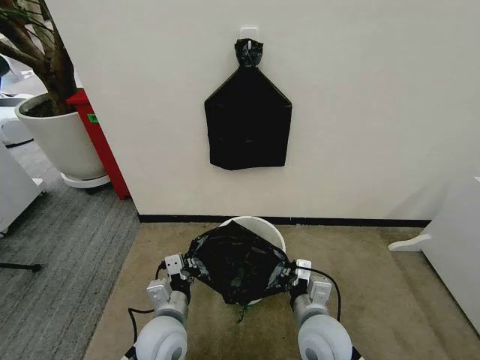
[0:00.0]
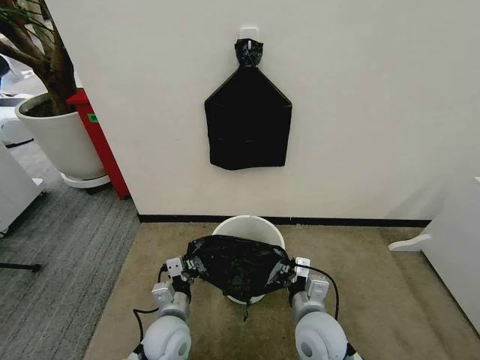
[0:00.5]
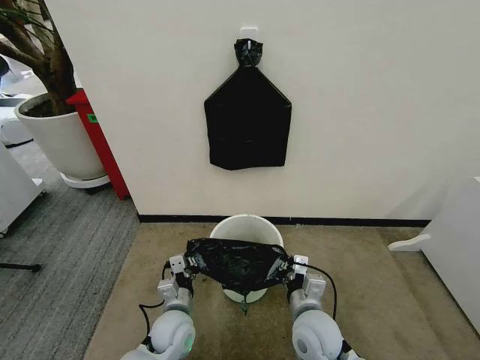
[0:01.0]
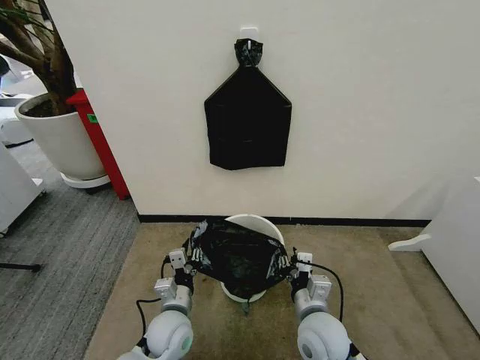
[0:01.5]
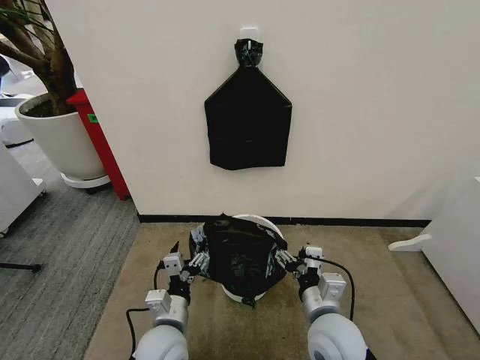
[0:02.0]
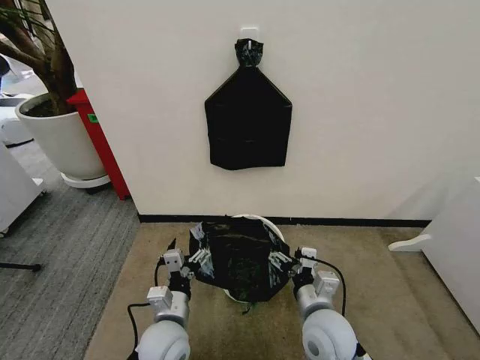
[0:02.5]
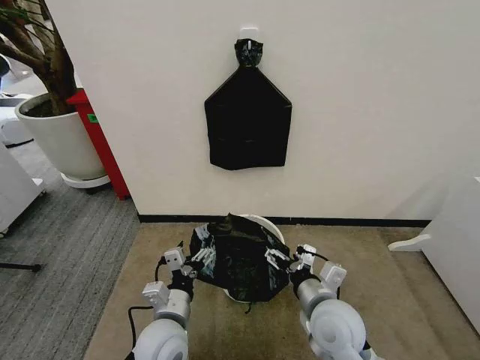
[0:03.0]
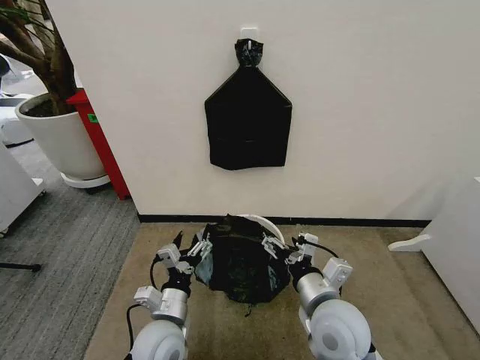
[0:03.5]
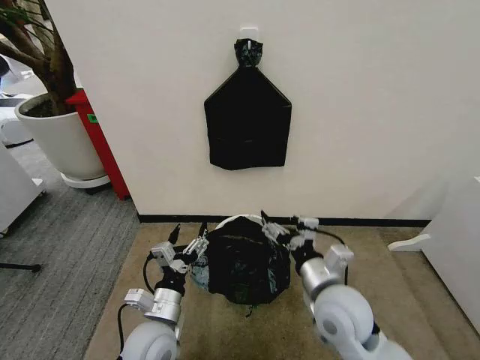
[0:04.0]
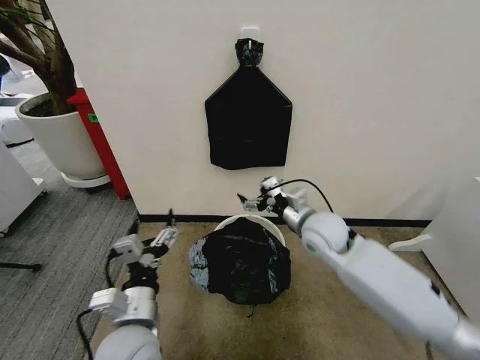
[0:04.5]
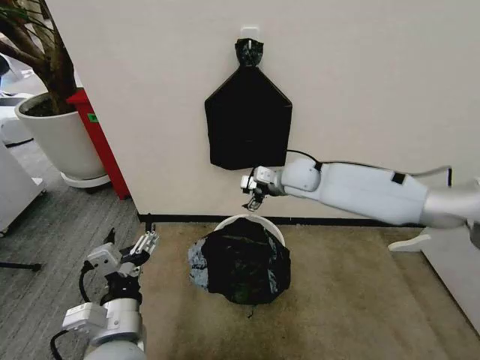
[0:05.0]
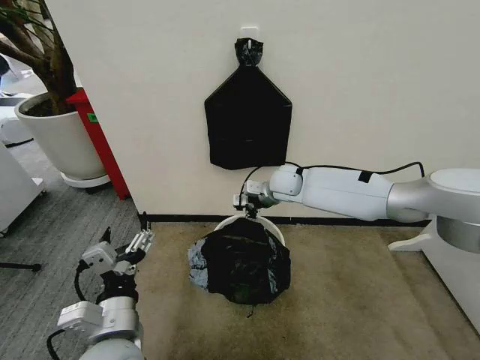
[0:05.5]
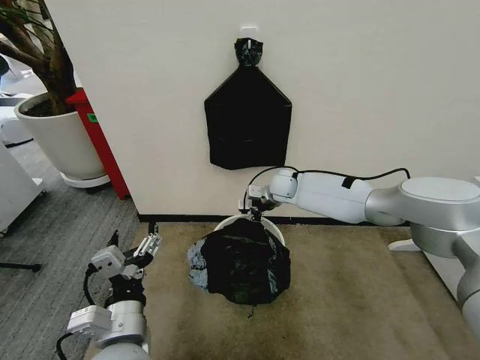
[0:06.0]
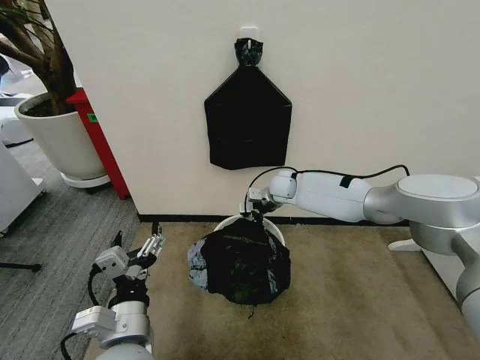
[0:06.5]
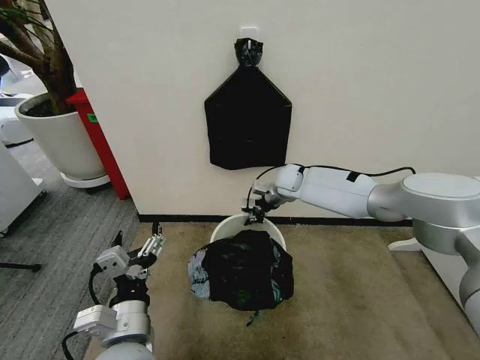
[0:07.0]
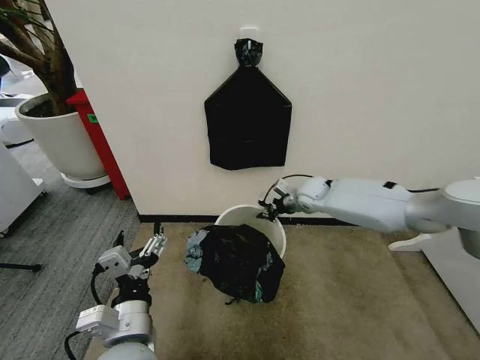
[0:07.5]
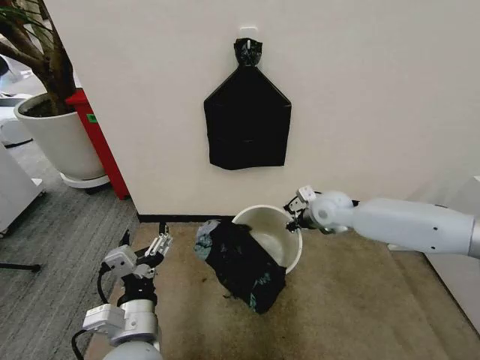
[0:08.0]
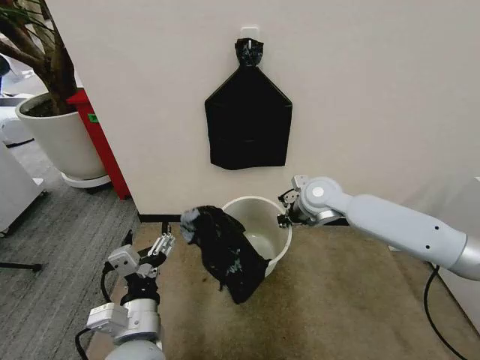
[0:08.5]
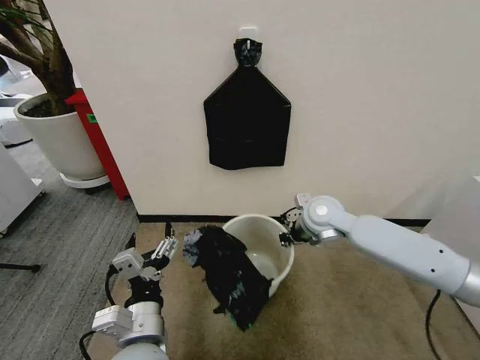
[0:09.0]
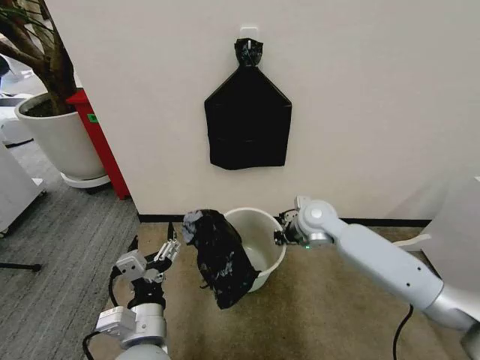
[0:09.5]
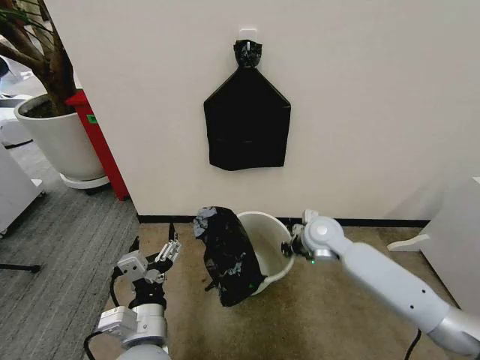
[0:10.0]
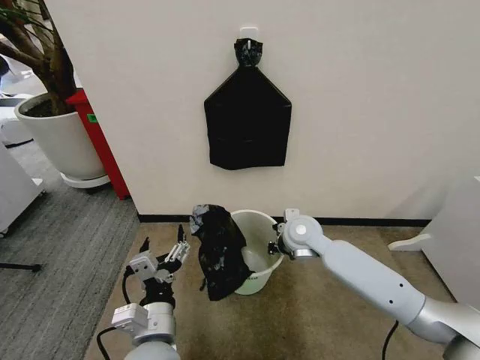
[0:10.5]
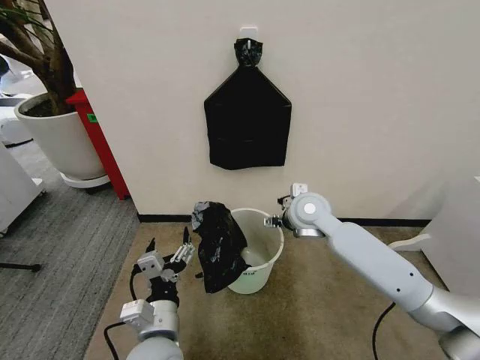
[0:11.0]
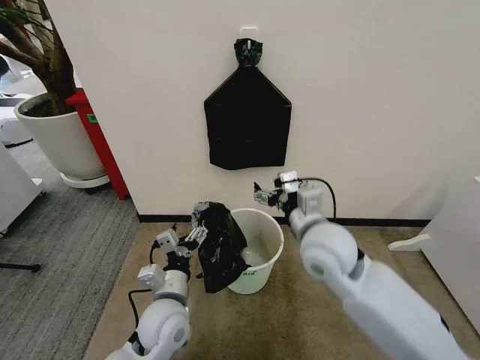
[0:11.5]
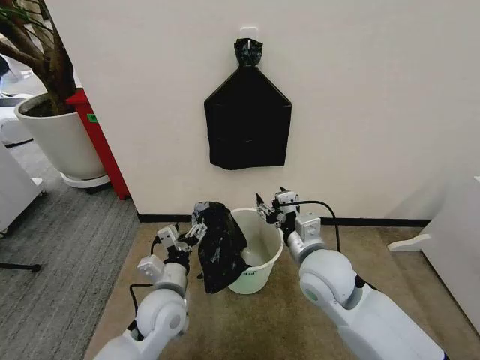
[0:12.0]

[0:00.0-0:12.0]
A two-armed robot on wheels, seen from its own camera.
Task of the whole recording: Place the garbage bag over the trash bin.
0:00.0 to 0:02.0: The left gripper reaches approximately 10 cm downward, then returns, and opens up; the right gripper opens.
0:02.0 to 0:04.0: The right gripper changes place by roughly 5 cm.
0:04.0 to 0:06.0: The right gripper is displaced forward by about 35 cm, while the left gripper goes about 10 cm upward and backward.
0:06.0 to 0:08.0: The right gripper shifts roughly 15 cm backward and to the right, and closes up.
0:08.0 to 0:10.0: The right gripper goes roughly 10 cm downward and backward.
0:10.0 to 0:12.0: The left gripper travels forward and downward by approximately 10 cm. Meanwhile the right gripper heads backward and upward, covering roughly 15 cm, and opens its fingers.

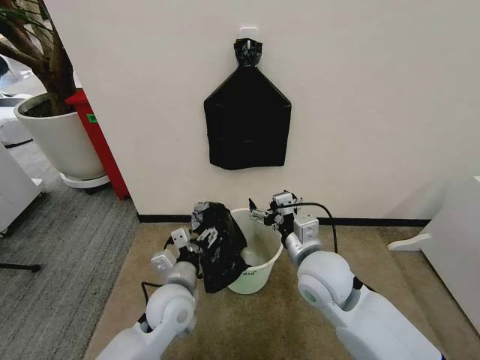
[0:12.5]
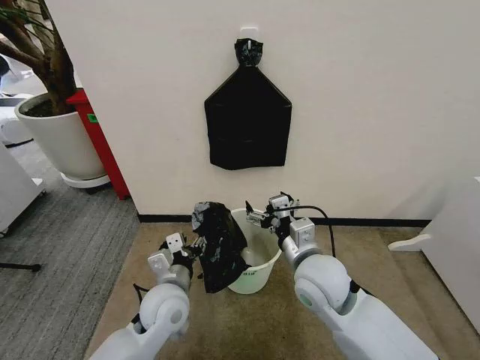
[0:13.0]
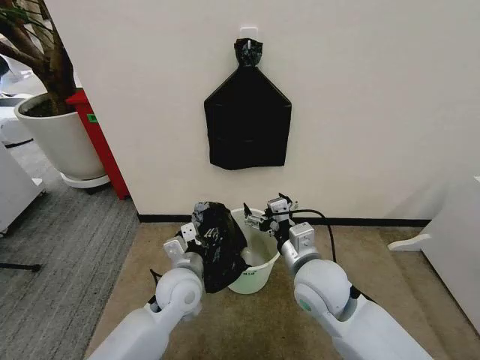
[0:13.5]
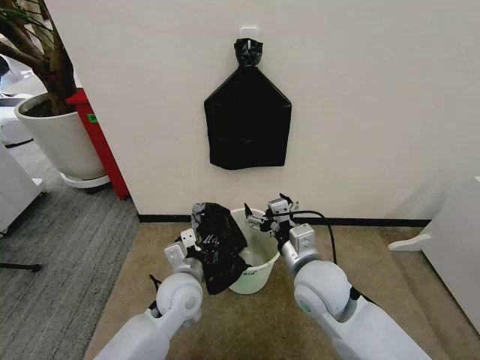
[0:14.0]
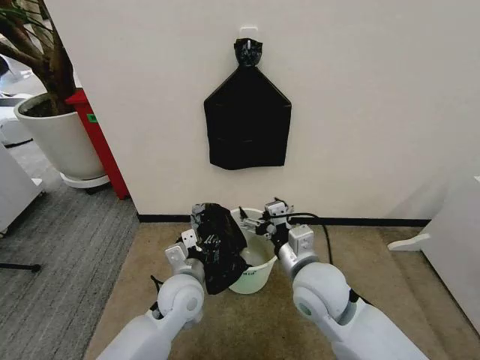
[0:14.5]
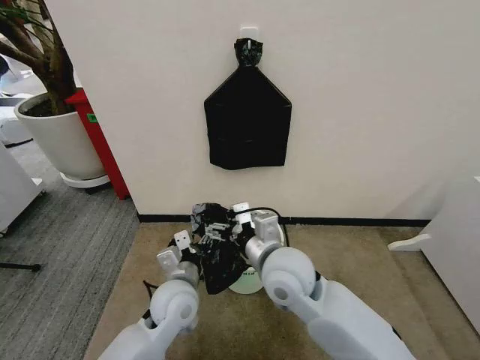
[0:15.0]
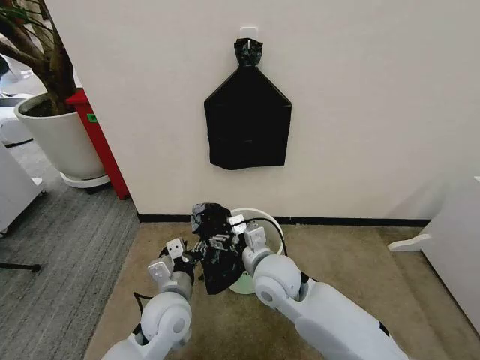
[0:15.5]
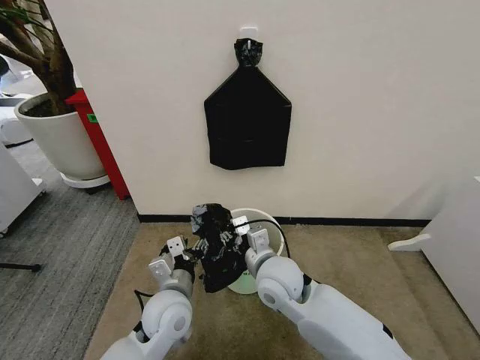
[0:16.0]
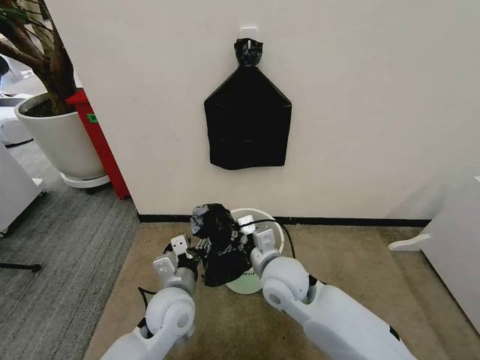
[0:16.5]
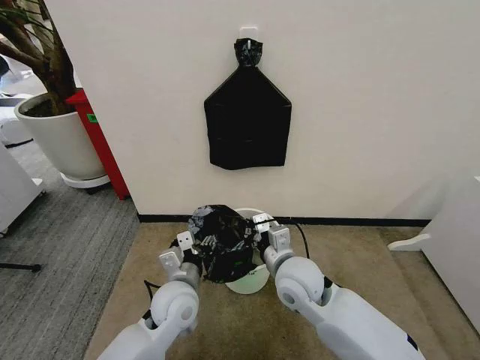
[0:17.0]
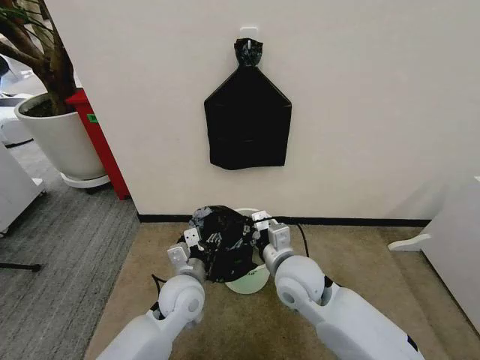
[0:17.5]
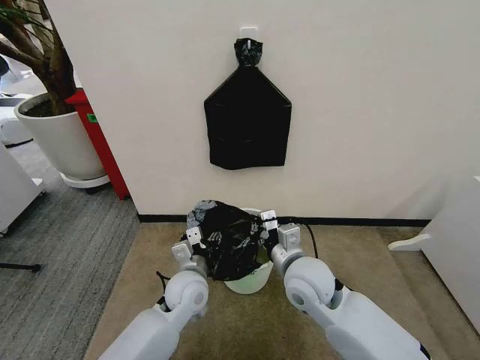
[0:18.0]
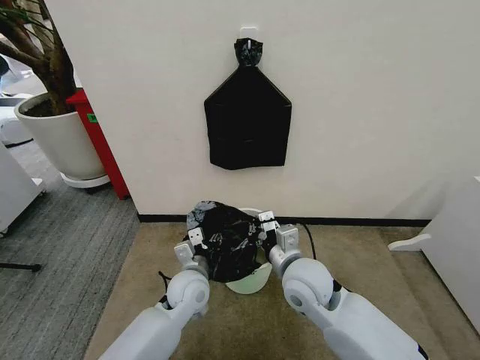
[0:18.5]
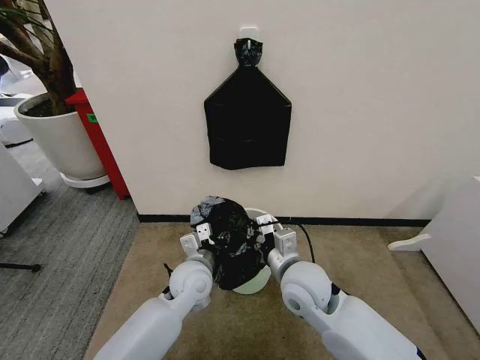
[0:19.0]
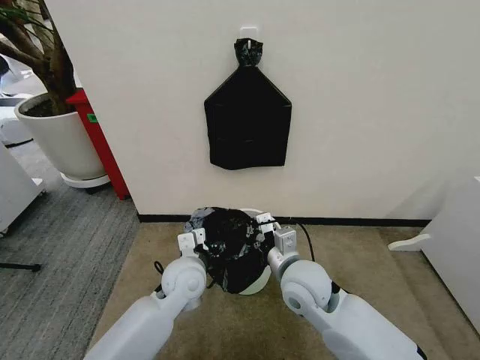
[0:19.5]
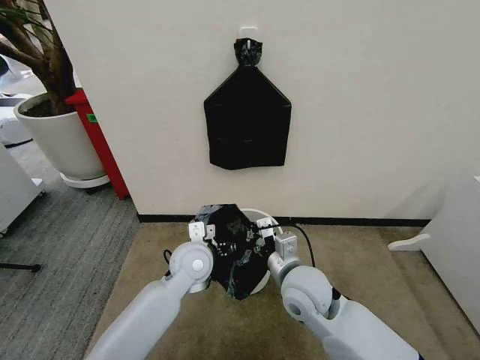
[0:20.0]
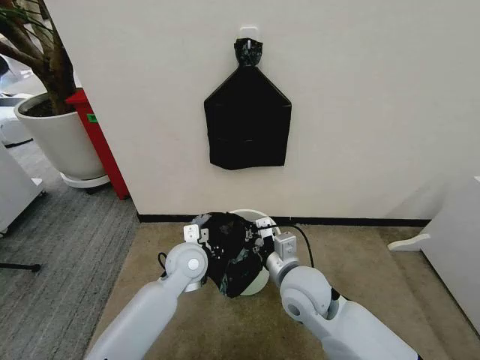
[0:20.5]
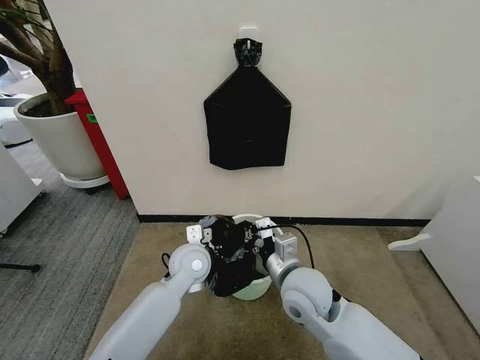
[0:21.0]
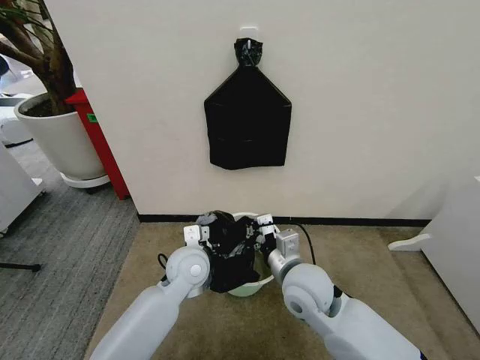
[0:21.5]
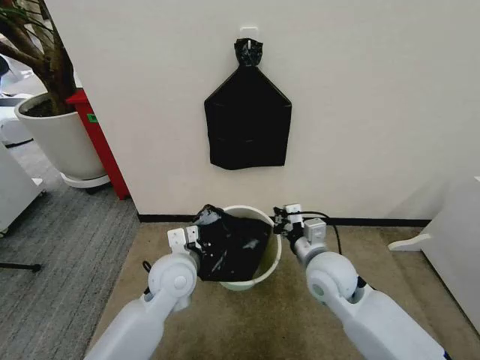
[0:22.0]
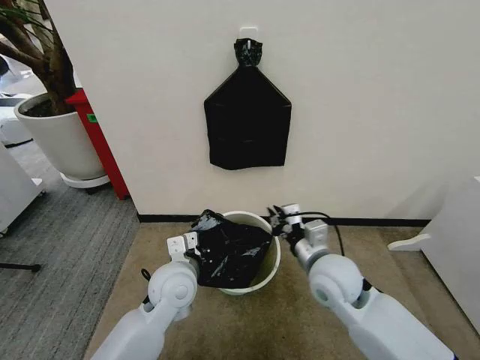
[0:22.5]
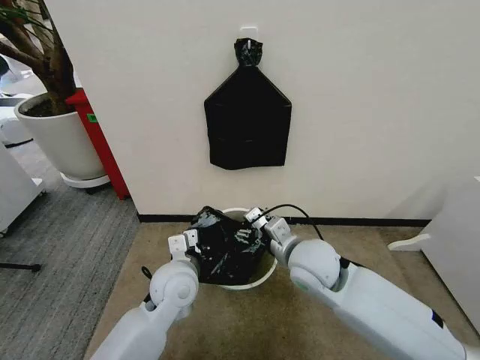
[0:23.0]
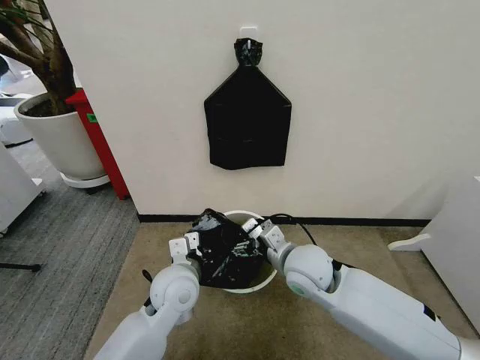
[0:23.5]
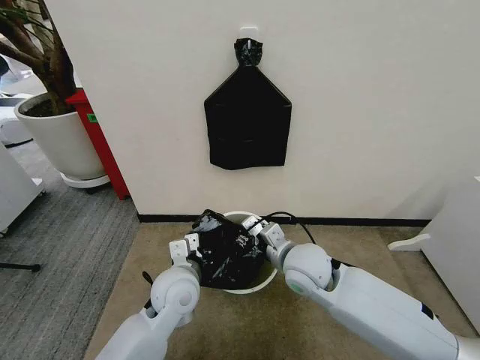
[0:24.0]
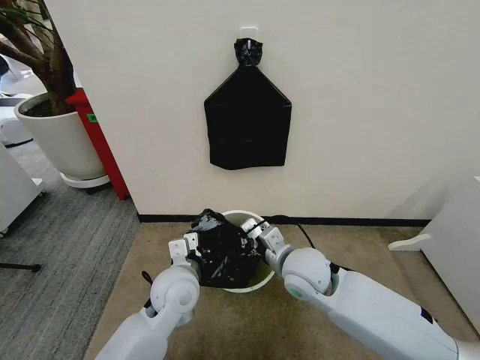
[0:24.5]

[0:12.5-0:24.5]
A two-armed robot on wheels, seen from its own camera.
Task of the whole recording: Place the garbage bag over the trash bin.
0:12.5 to 0:14.5: The grippers stay close to where they were, moving slightly.
0:14.5 to 0:16.5: The right gripper moves to the left, approximately 5 cm, and closes its fingers.
0:16.5 to 0:18.5: The left gripper is displaced forward by roughly 5 cm.
0:18.5 to 0:20.5: The left gripper shifts some 5 cm upward, and opens, then closes again.
0:20.5 to 0:22.5: The right gripper moves to the right, some 5 cm, while the left gripper goes roughly 5 cm backward, and closes up.
0:22.5 to 0:24.5: The right gripper shifts roughly 5 cm to the left, and opens and closes again.

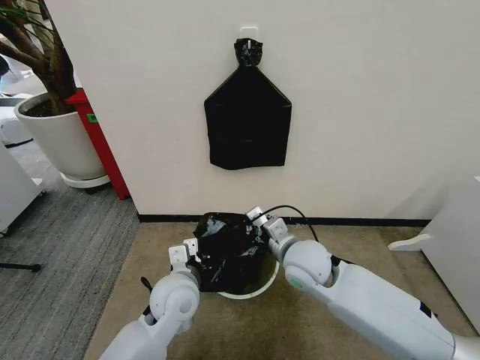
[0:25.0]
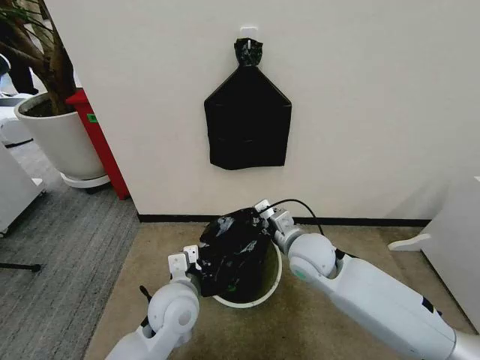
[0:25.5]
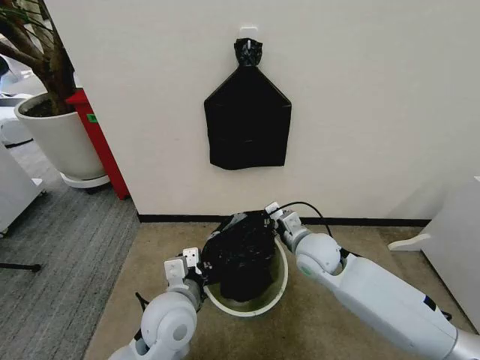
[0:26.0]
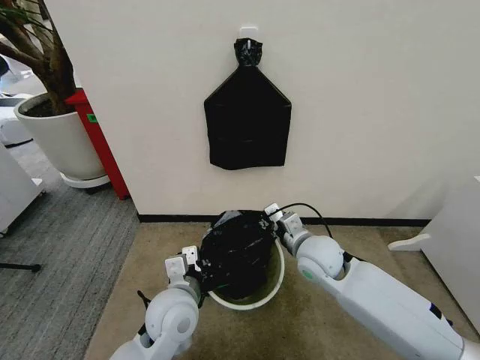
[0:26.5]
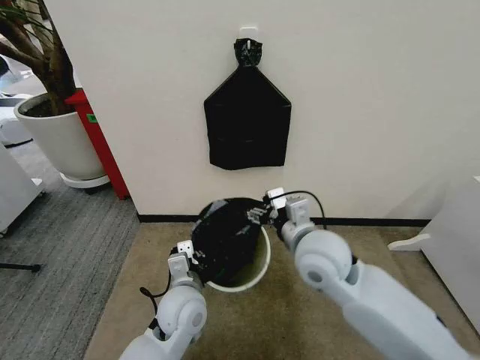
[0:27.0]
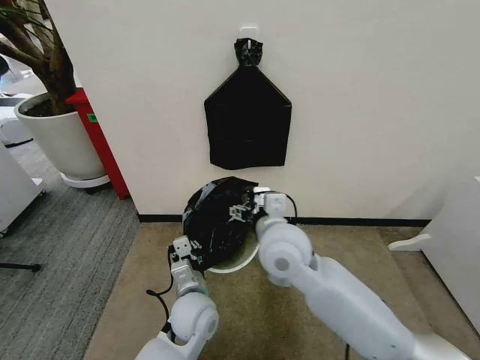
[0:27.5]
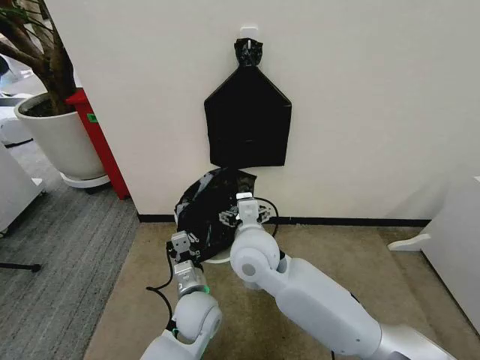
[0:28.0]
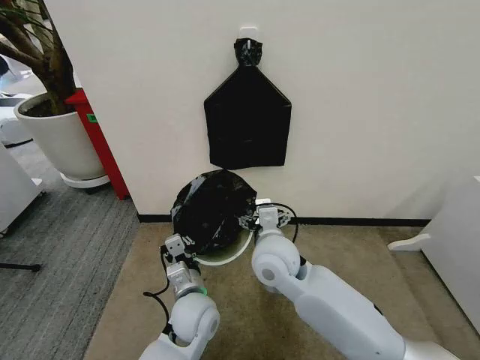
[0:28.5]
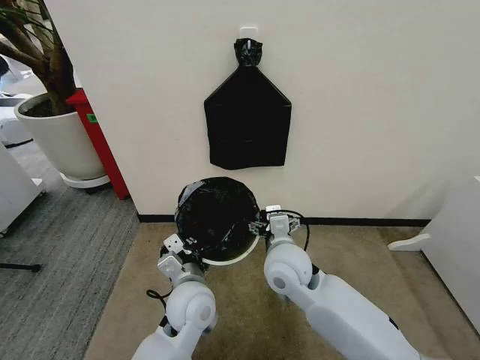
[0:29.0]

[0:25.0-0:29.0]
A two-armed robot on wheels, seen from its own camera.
Task of the whole recording: Place the garbage bag over the trash bin.
0:25.0 to 0:27.0: The right gripper moves upward, some 5 cm, and opens its fingers.
0:27.0 to 0:29.0: The right gripper shifts roughly 5 cm downward.
